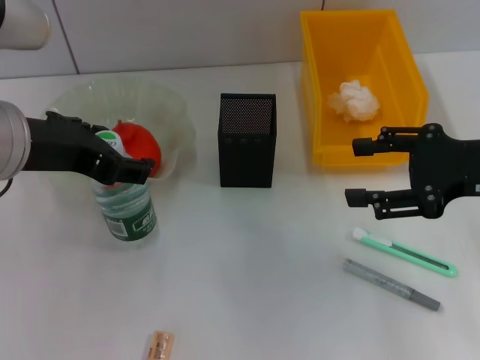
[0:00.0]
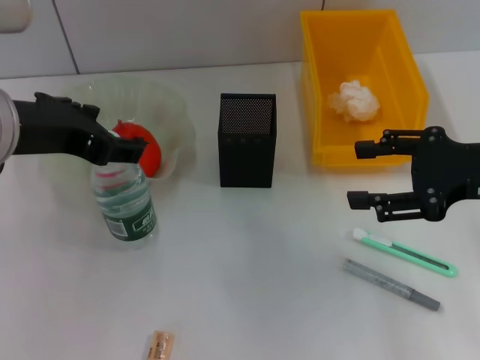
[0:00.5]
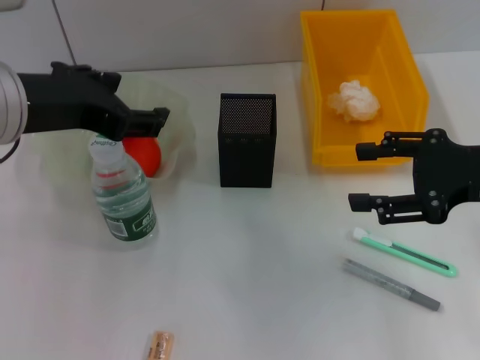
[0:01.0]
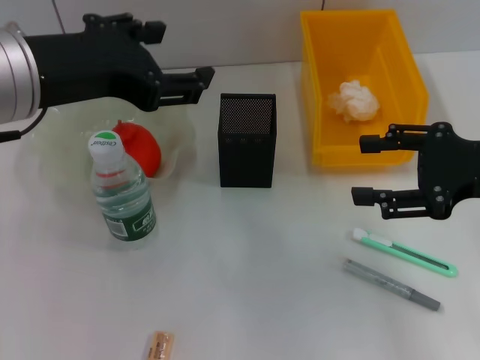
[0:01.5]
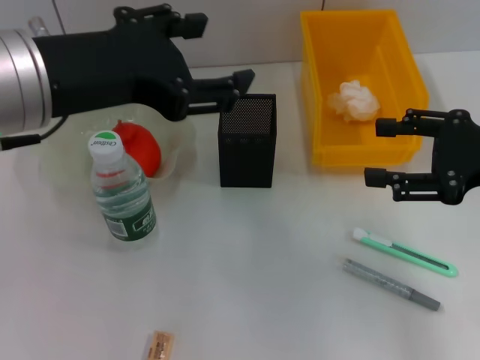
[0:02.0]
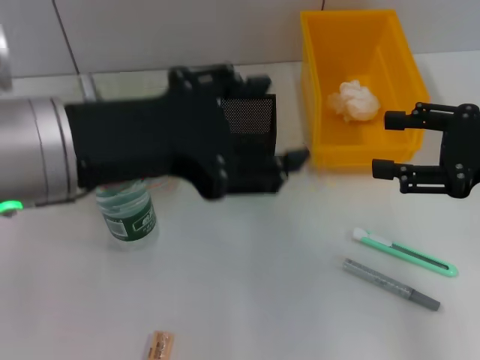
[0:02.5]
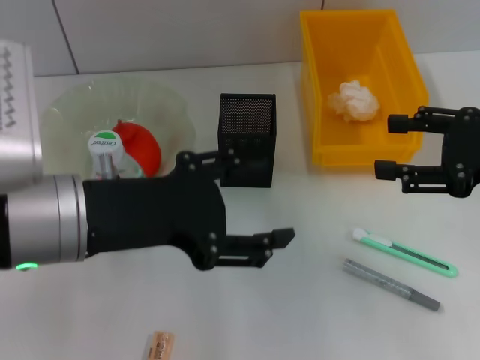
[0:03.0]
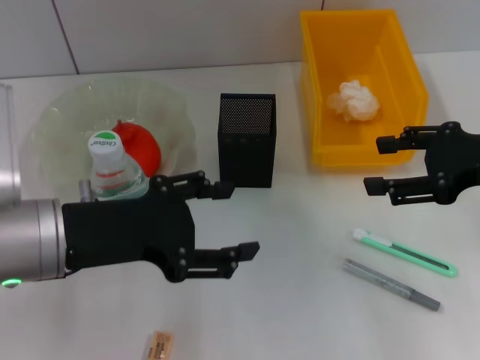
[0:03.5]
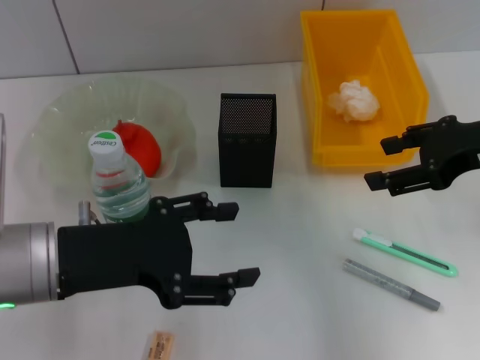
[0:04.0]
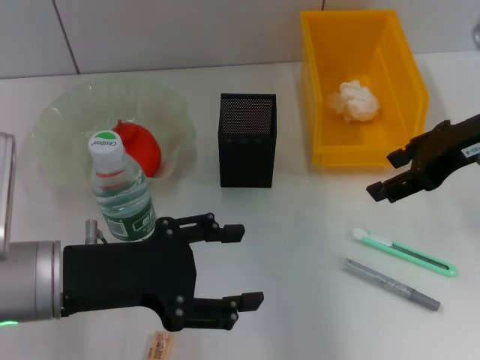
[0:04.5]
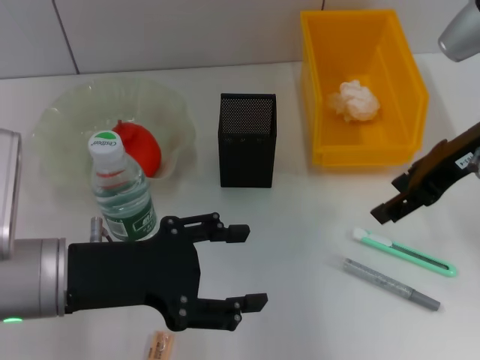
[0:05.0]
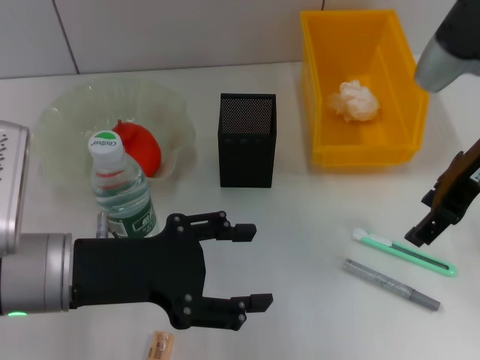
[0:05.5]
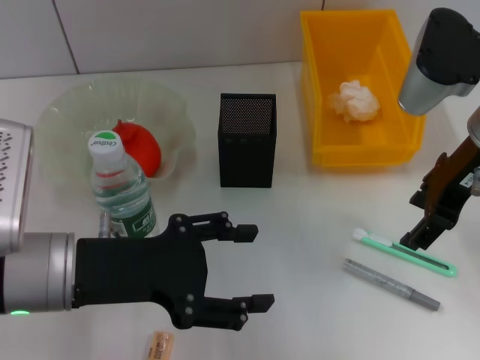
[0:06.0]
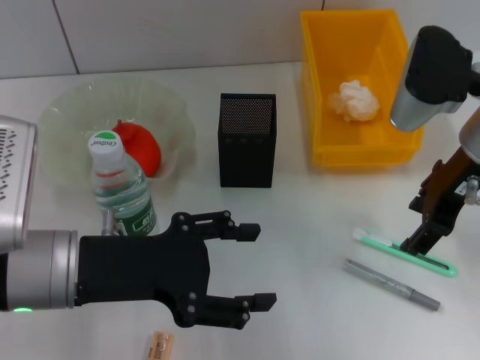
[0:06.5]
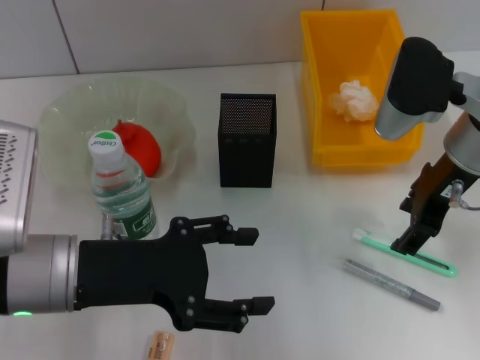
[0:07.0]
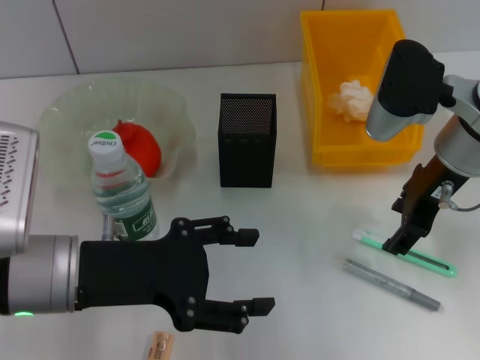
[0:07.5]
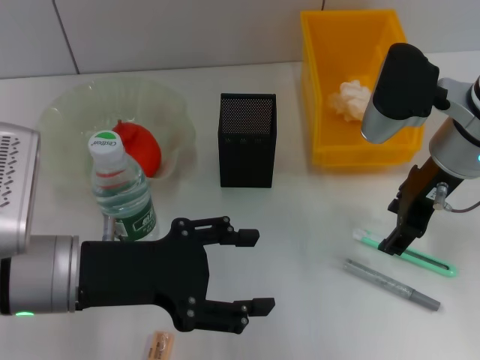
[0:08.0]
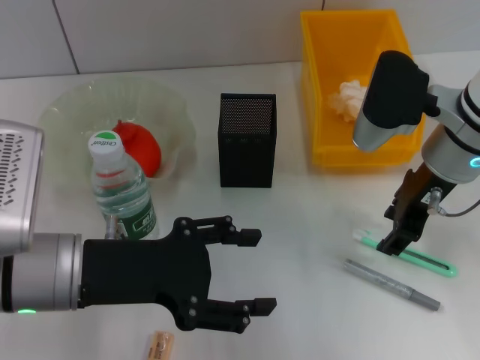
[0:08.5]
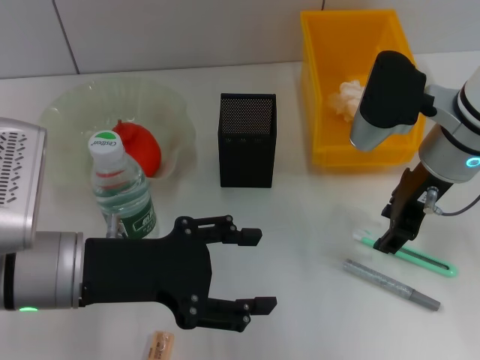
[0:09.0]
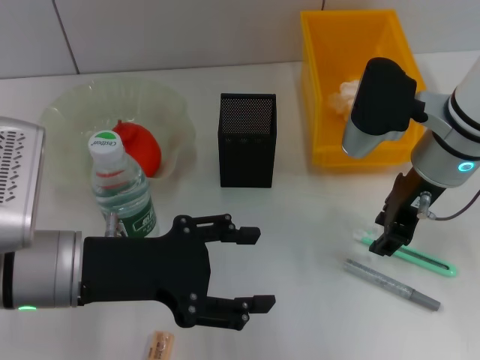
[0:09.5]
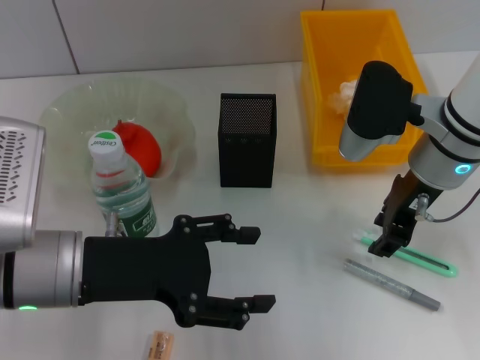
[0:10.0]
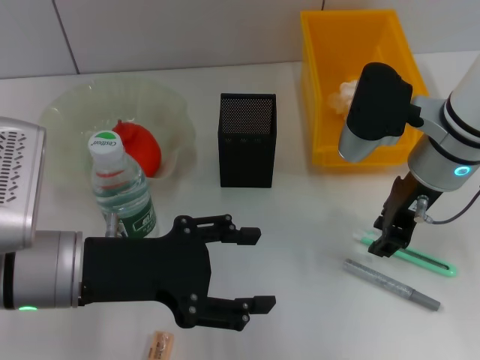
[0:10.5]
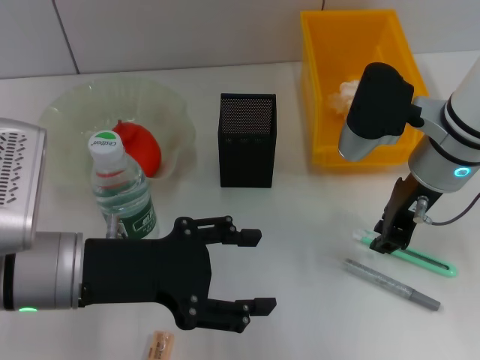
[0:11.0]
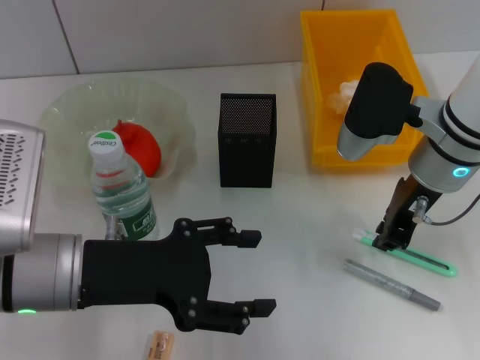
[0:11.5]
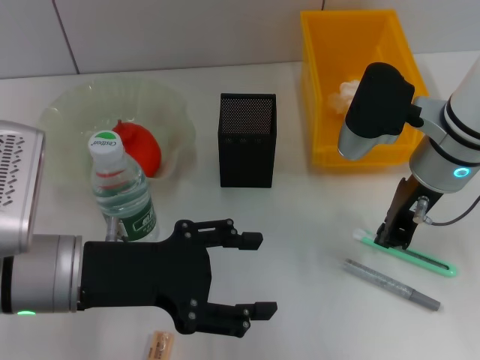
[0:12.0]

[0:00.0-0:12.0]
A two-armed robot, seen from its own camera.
0:02.0 to 0:04.0: The left gripper goes approximately 10 cm downward.
0:04.0 to 0:06.0: The right gripper shifts some 5 cm to the left.
0:06.0 to 0:08.0: The grippers make only small movements.
0:08.0 to 0:10.0: The right gripper closes its fingers.
0:10.0 to 0:12.0: The right gripper closes.

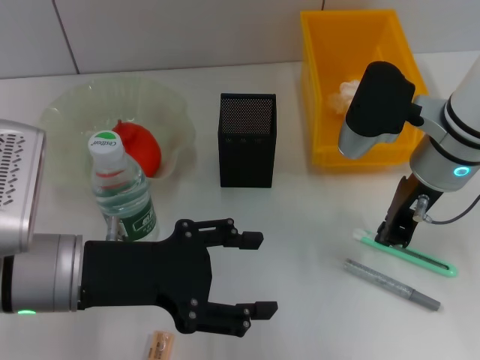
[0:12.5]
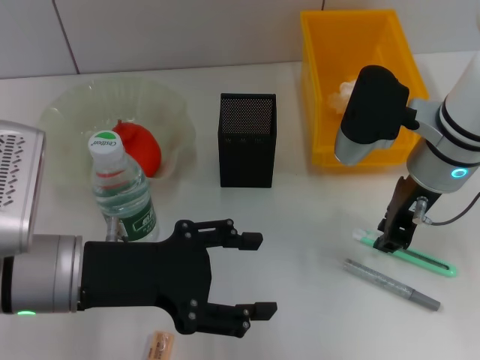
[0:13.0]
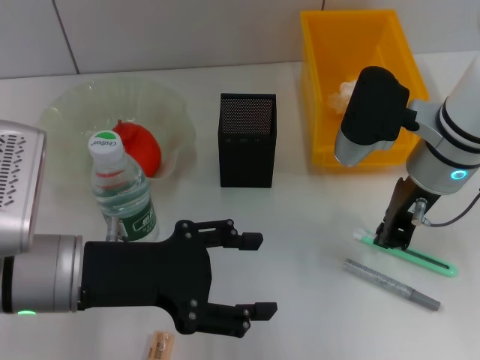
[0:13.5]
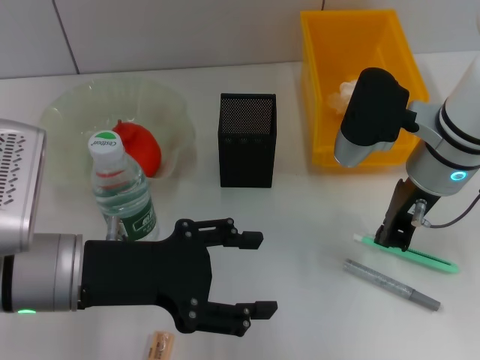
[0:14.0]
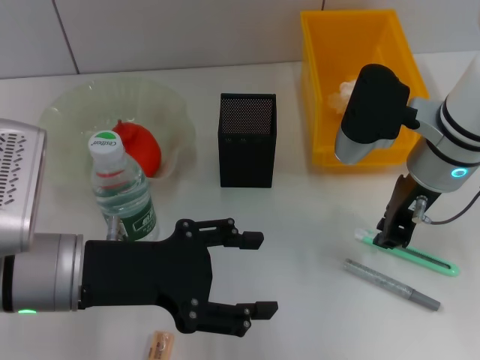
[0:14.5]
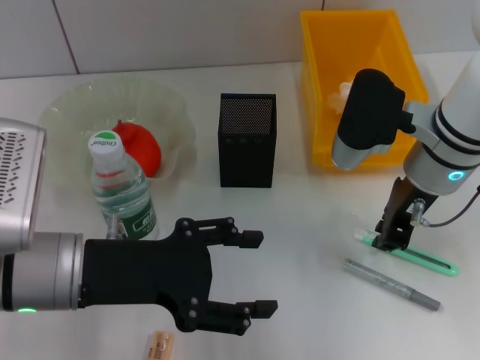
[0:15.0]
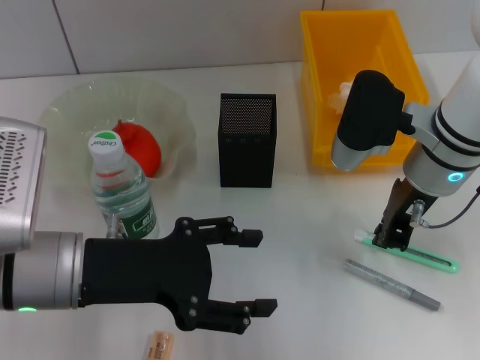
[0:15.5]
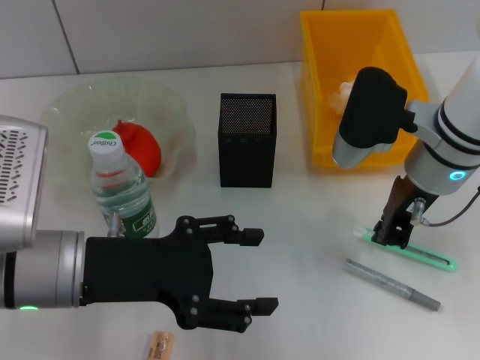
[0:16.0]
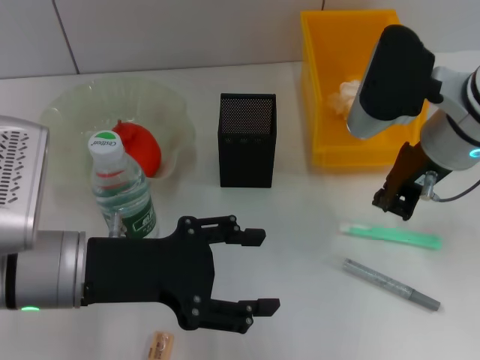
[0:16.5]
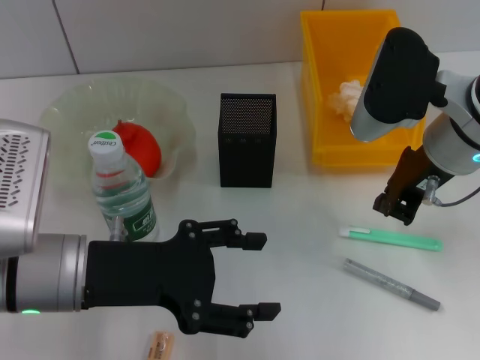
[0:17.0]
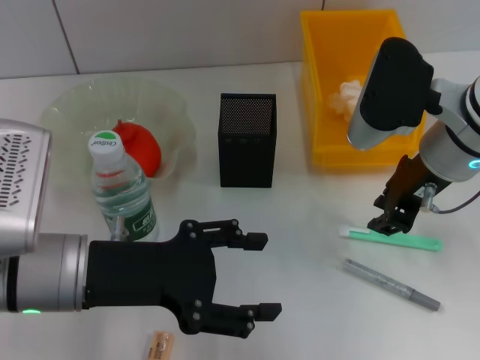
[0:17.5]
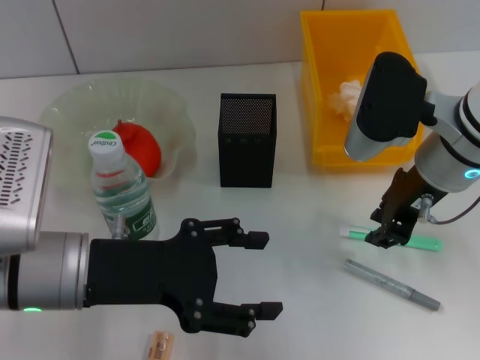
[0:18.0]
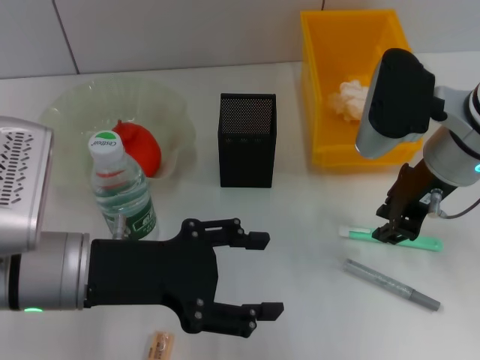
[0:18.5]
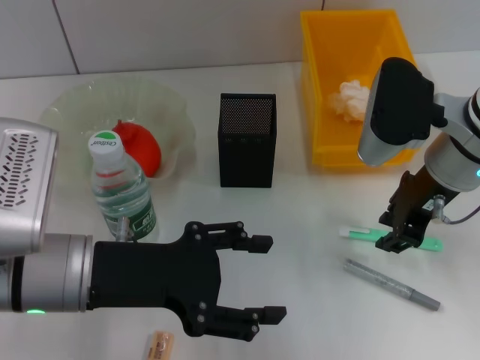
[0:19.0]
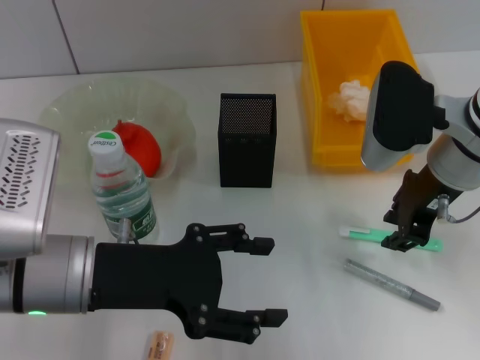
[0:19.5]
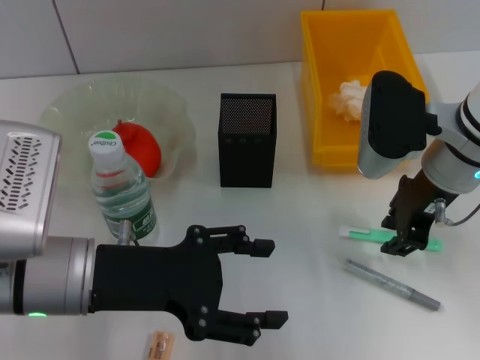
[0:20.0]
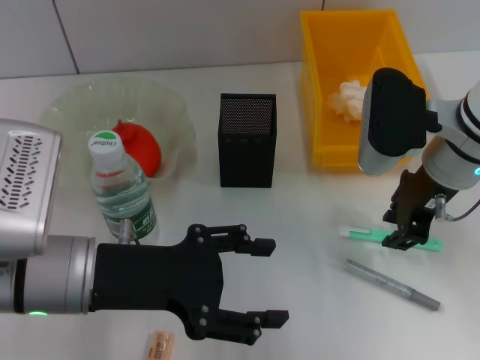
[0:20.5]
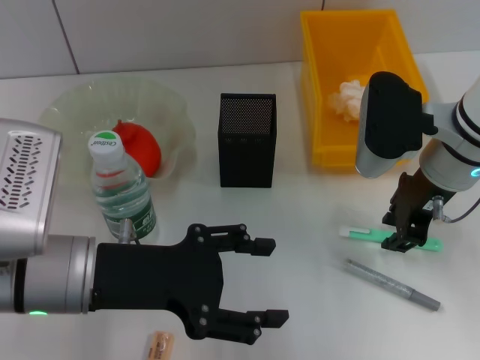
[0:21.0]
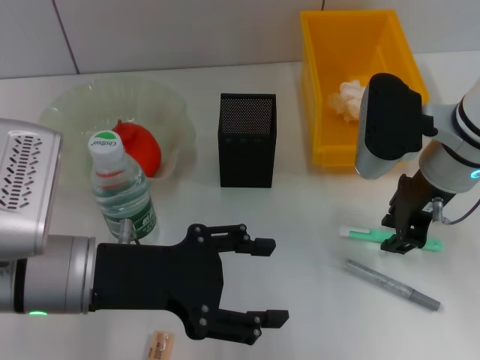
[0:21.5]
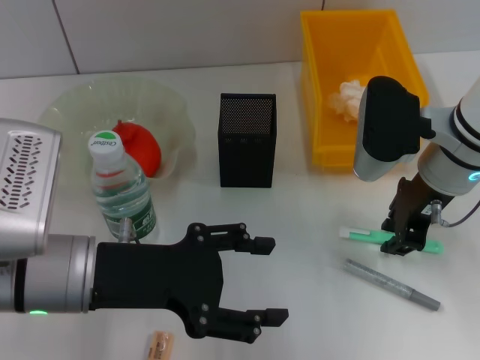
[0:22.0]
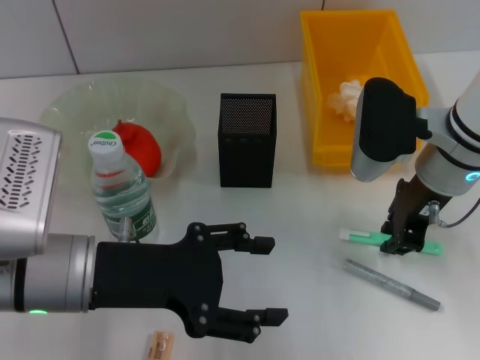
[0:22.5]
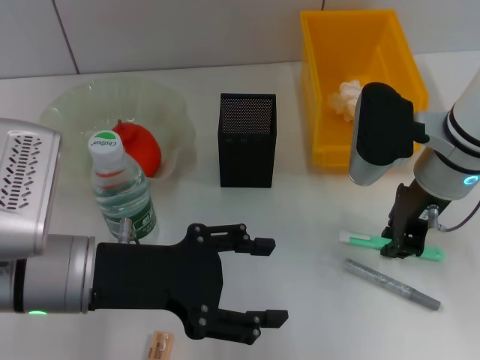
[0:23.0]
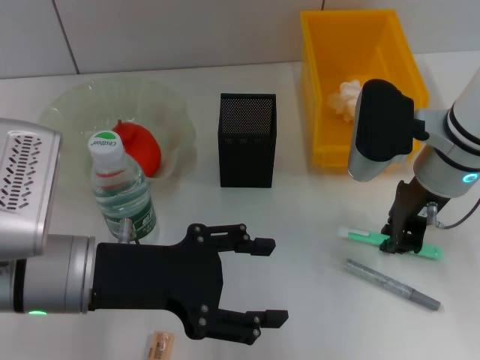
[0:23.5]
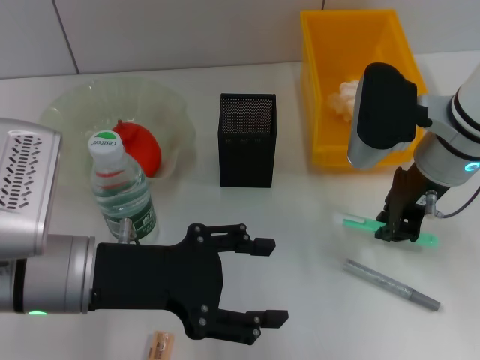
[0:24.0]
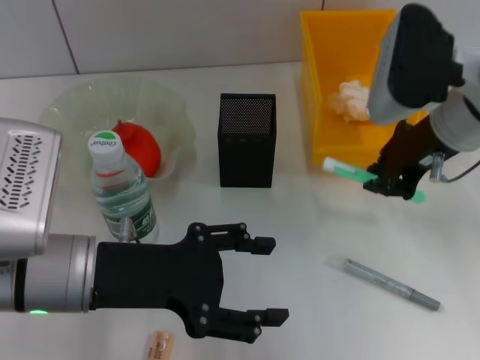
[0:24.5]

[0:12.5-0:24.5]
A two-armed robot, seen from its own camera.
Step, 0:12.5 to 0:23.0: Grab the blue utility knife with the right hand.
0:12.5 to 0:14.5: Both grippers stay put.
0:14.5 to 0:16.5: The grippers make only small movements.
0:16.5 to 0:18.5: The right gripper opens its fingers.
0:18.5 to 0:20.5: The grippers move only a little.
0:20.5 to 0:22.5: Both grippers stay put.
0:22.5 to 0:24.5: The right gripper is displaced upward by some 5 cm.

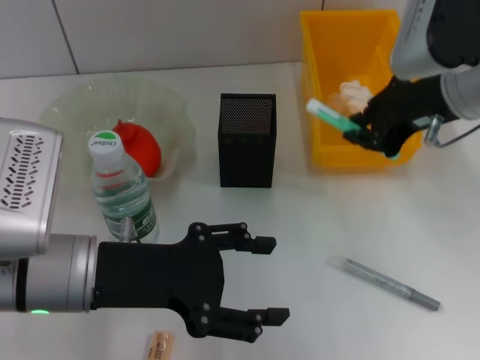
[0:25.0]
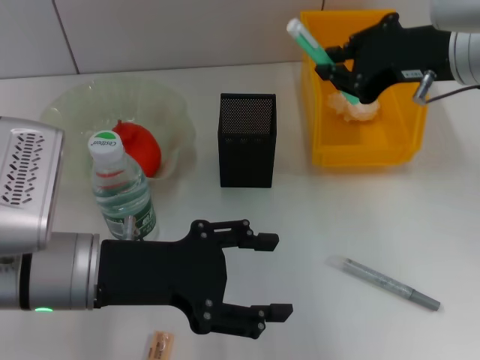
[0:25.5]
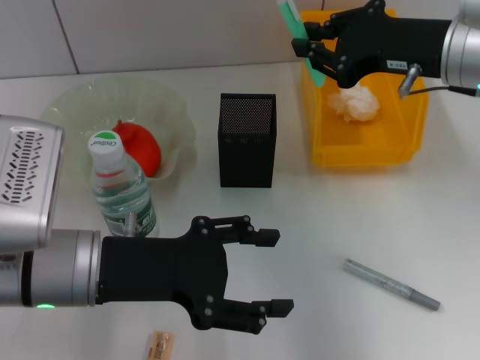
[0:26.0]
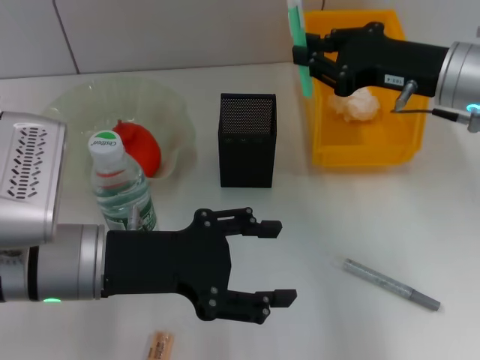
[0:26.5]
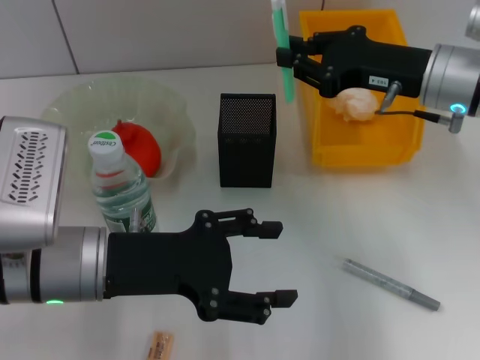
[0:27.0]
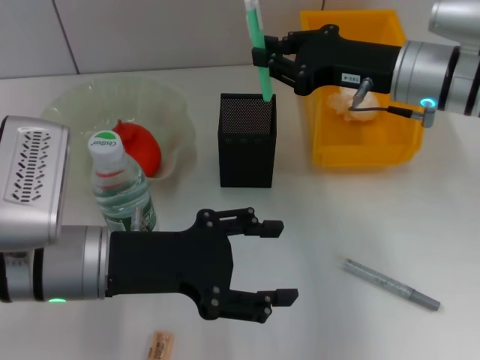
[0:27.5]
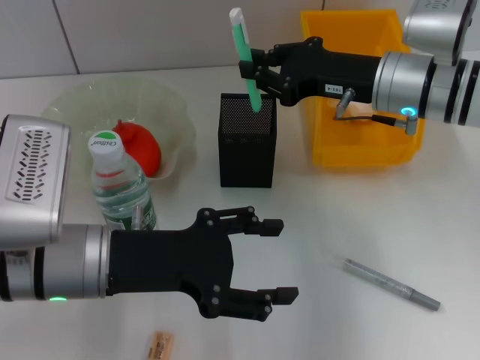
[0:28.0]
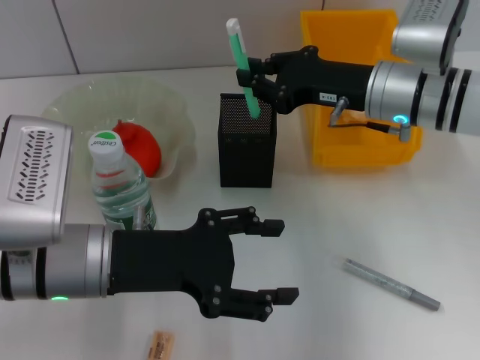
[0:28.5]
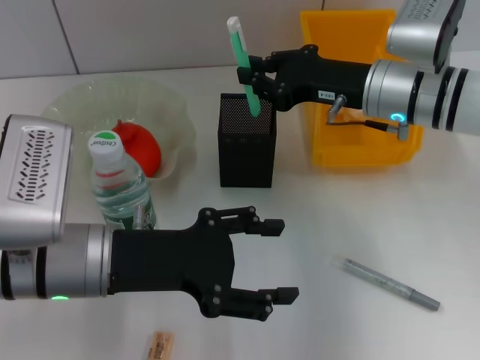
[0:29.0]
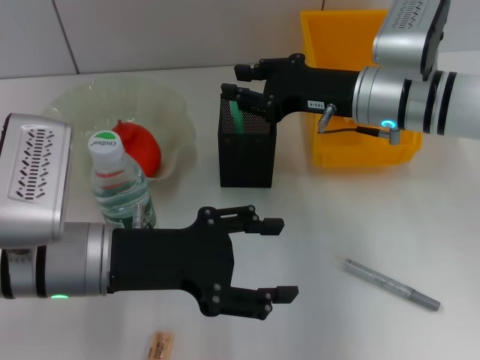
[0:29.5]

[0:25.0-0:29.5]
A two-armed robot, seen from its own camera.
0:25.0 to 0:27.0: The right gripper goes roughly 5 cm downward.
0:27.0 to 0:29.5: The right gripper shifts by about 5 cm.
